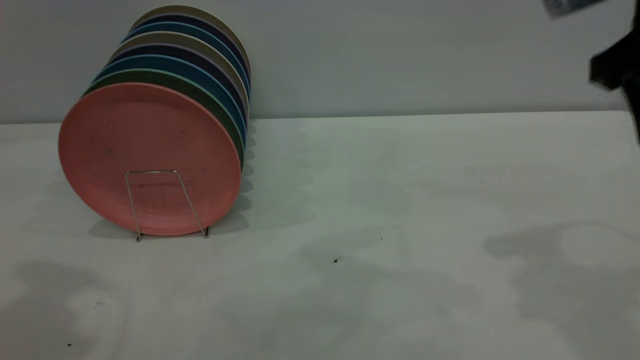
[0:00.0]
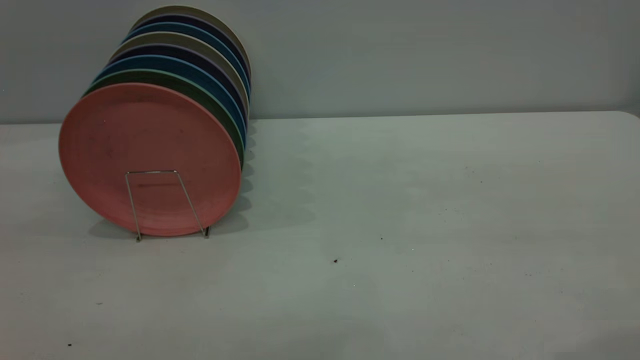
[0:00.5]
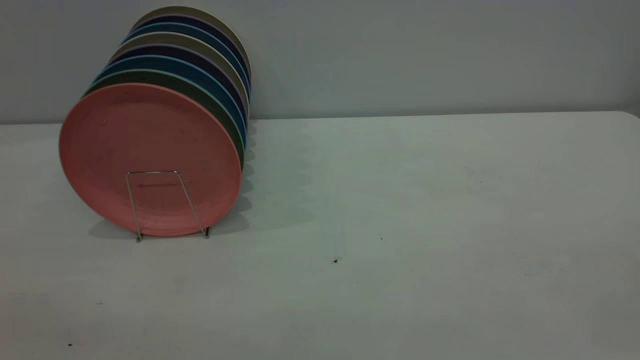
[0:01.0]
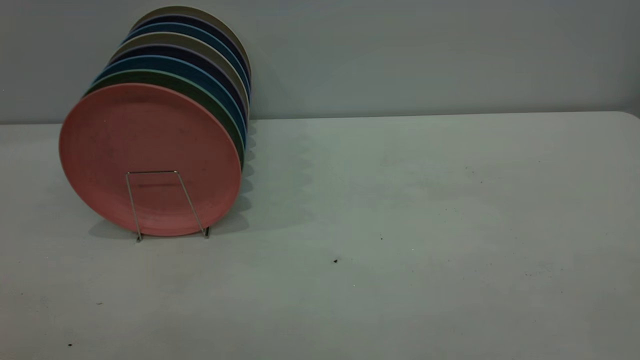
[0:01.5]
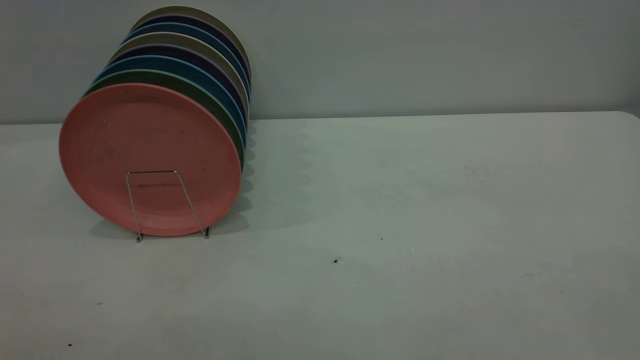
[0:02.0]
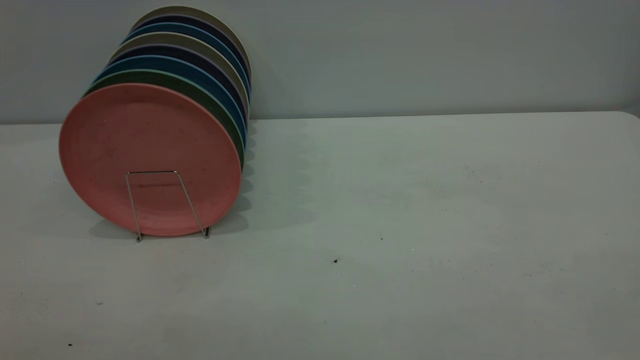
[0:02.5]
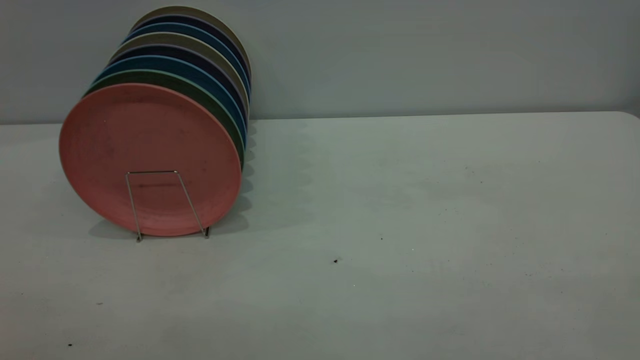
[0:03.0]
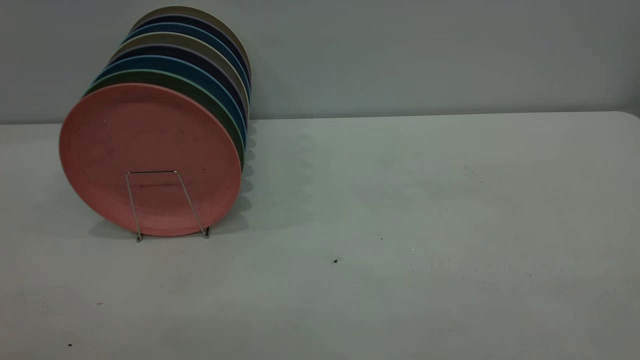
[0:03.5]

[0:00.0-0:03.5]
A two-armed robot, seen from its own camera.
Task of the whole recording: the right gripper grasp the pink plate, the right gripper pass the pink plate to the left gripper, and the left gripper place the pink plate on the plate rack.
0:00.0 to 0:02.0: The right gripper heads backward, covering about 30 cm.
